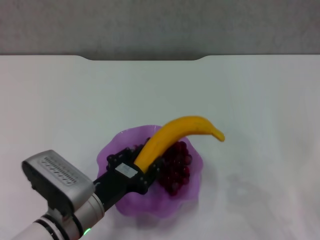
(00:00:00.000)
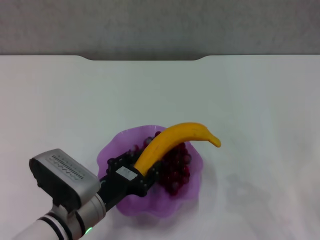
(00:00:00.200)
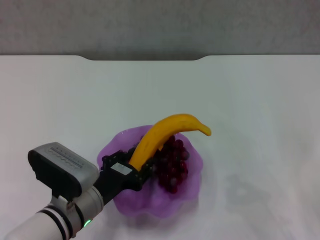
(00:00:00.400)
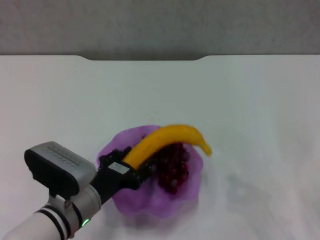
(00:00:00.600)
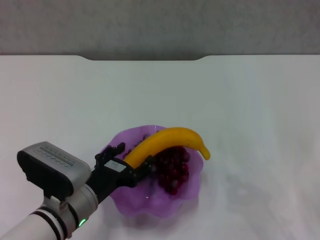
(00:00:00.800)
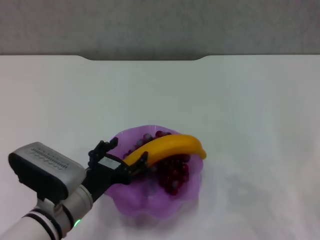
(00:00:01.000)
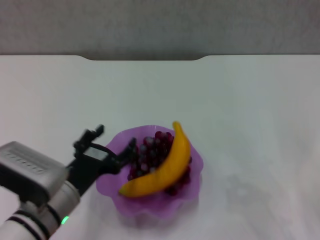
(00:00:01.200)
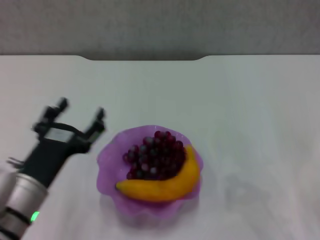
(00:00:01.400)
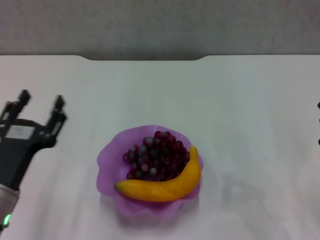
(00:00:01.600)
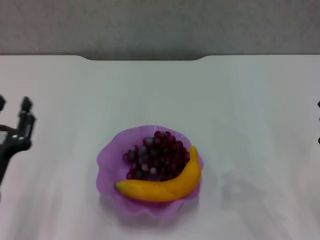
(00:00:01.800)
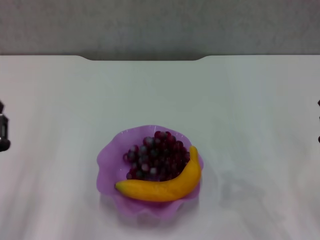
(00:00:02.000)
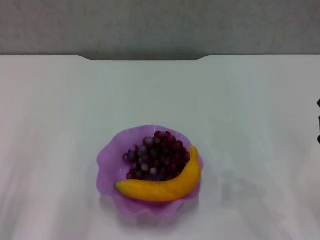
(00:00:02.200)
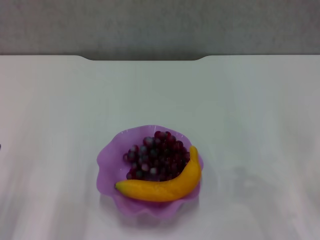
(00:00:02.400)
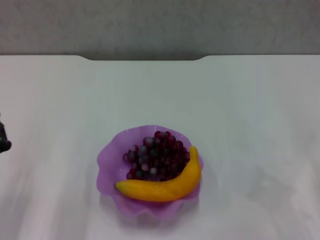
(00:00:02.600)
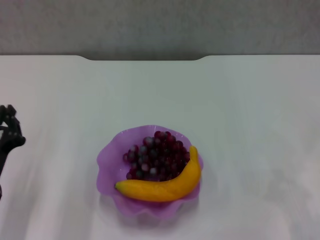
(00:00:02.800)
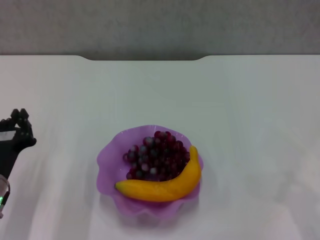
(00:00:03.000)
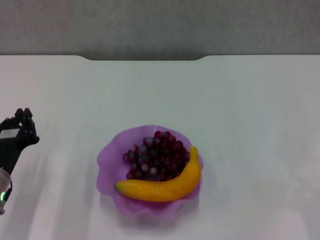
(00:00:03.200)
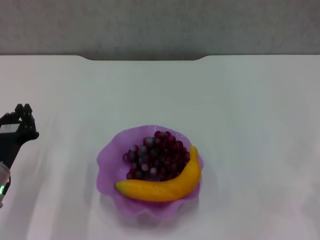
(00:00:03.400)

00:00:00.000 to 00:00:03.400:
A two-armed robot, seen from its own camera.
00:00:00.000 to 00:00:01.600: The left gripper goes roughly 5 cm to the left, and opens its fingers.
00:00:01.600 to 00:00:03.400: The left gripper travels forward and to the left by roughly 10 cm, and closes.
